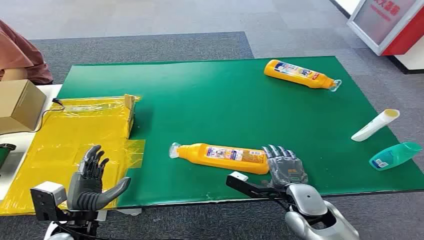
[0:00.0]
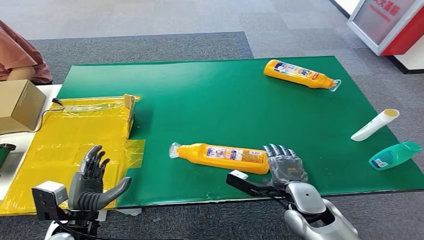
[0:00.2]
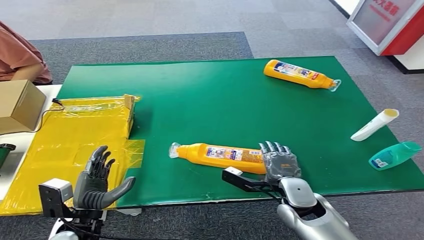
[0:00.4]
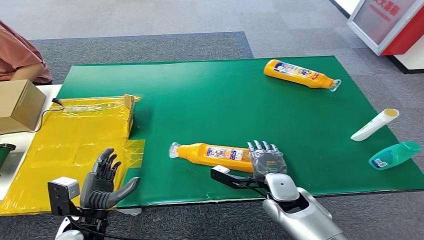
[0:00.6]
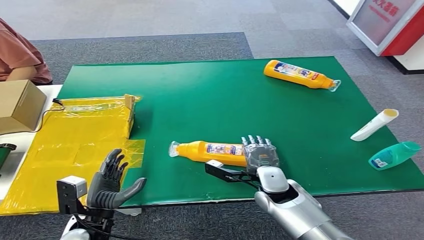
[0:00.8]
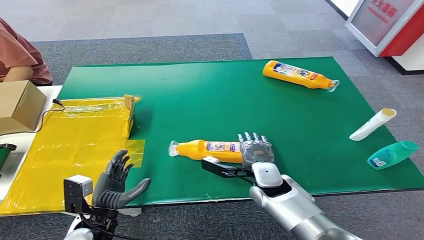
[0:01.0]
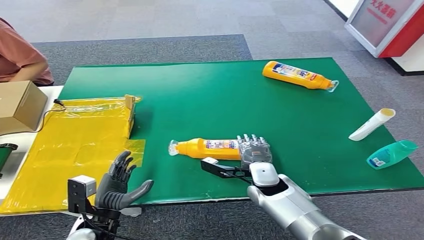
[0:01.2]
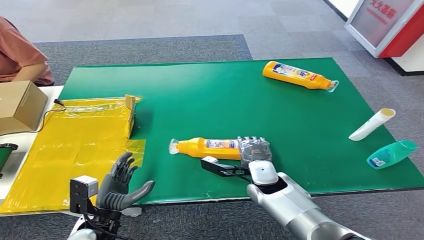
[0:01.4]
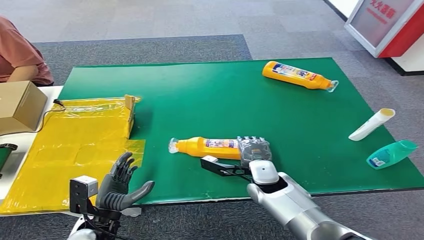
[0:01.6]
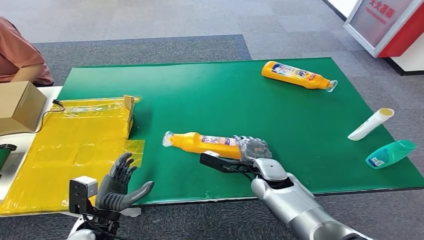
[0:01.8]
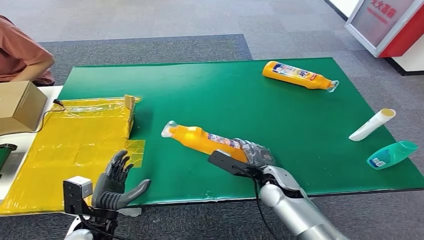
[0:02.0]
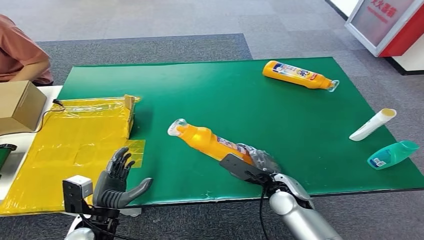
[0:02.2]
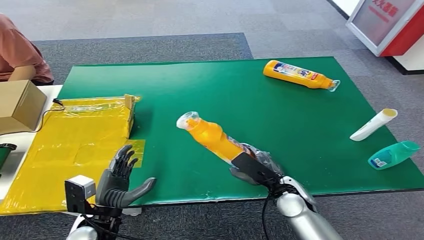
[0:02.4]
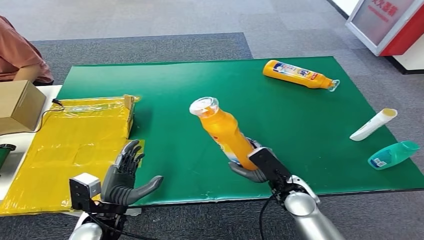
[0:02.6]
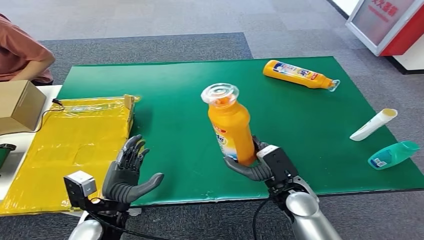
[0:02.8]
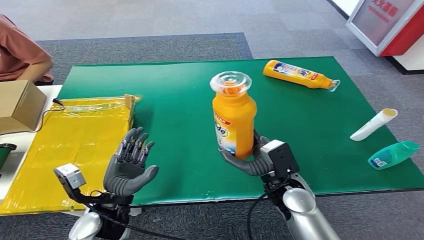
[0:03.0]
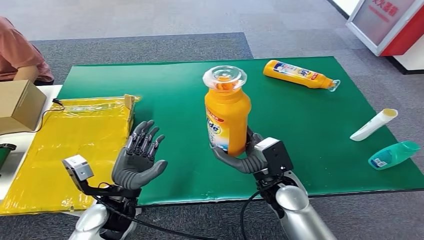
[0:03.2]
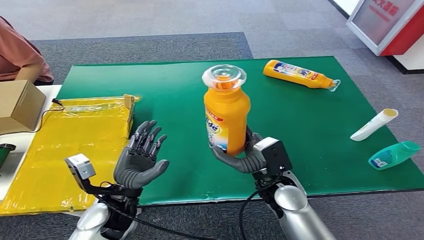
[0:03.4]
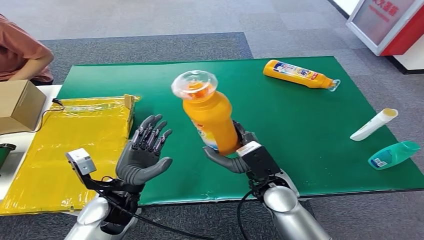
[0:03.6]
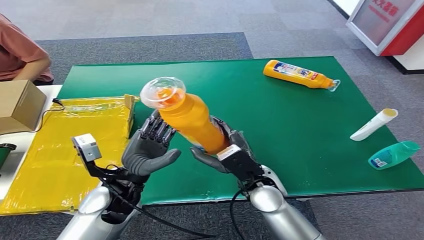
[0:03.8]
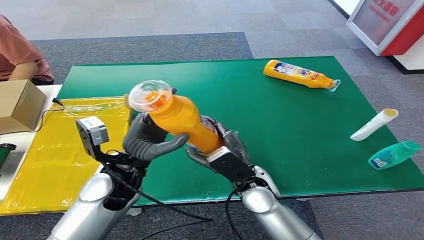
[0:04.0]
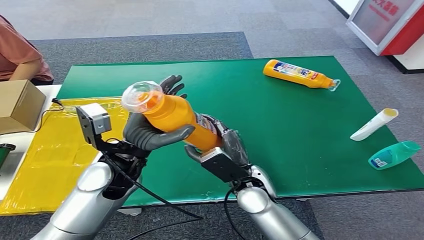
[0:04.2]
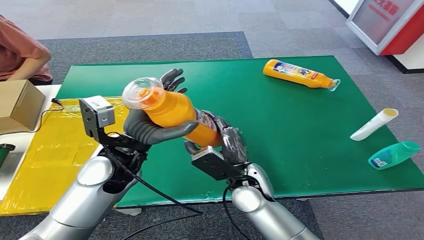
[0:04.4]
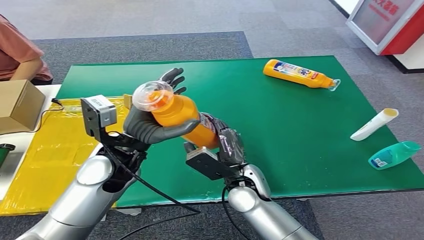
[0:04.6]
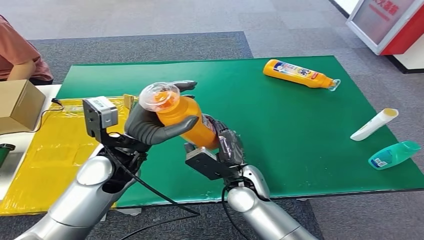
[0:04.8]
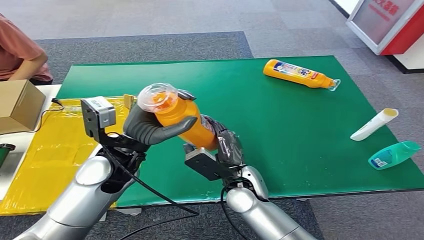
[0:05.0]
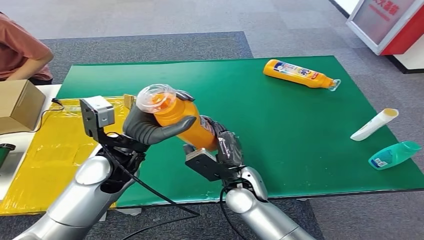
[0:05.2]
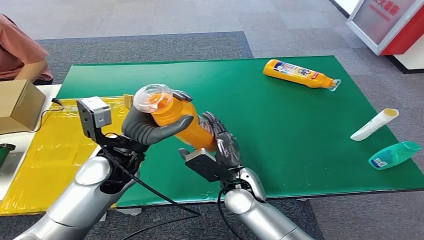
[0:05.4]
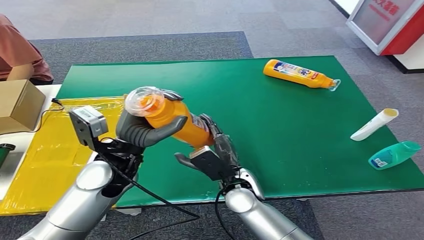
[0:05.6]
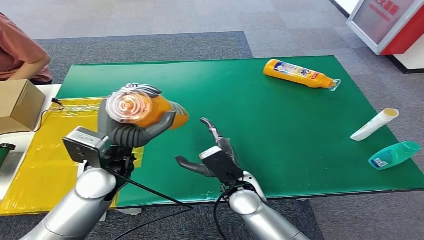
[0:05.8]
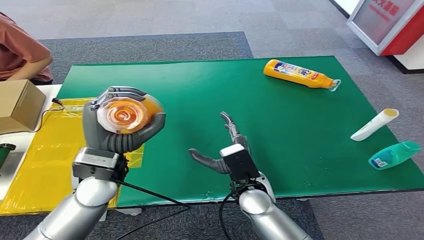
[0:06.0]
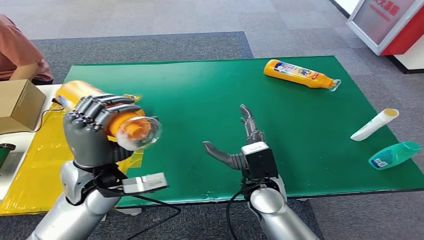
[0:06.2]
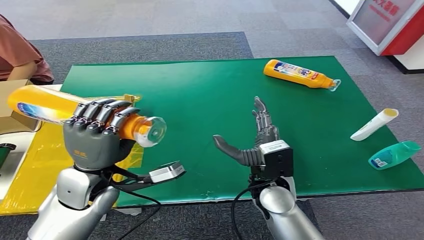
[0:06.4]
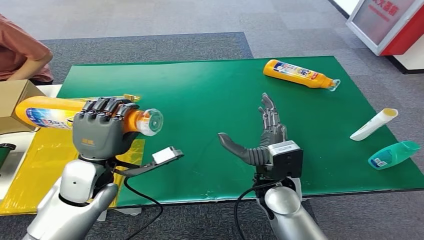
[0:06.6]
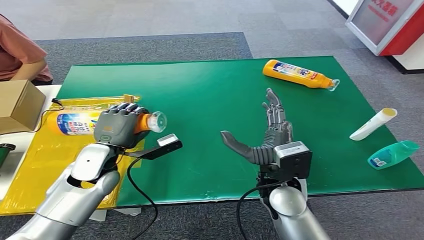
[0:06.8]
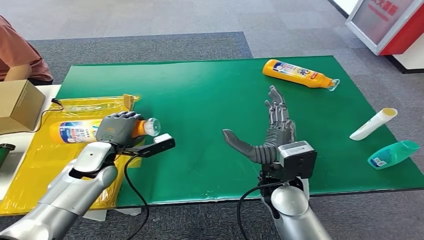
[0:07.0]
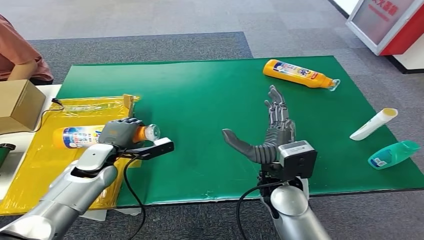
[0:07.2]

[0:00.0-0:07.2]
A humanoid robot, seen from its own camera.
Step, 0:00.0 to 0:02.4: Pick up the bottle from the table.
Step, 0:02.6 to 0:07.2: Turn the bottle to the front side.
0:01.4 to 0:02.8: The right hand shifts about 5 cm backward. The left hand moves roughly 5 cm.
